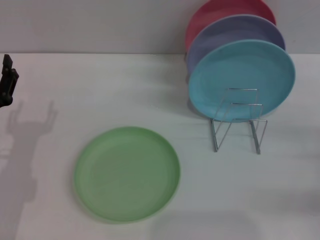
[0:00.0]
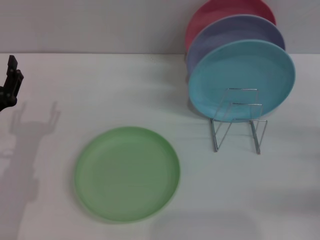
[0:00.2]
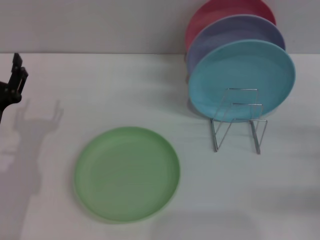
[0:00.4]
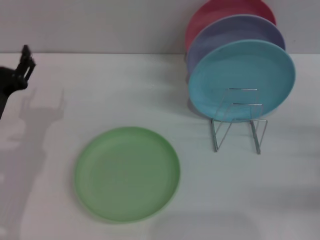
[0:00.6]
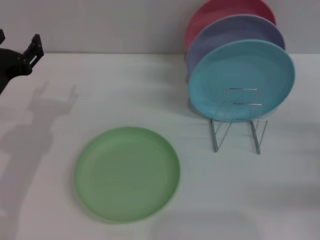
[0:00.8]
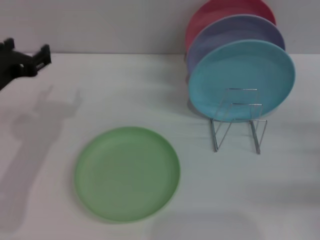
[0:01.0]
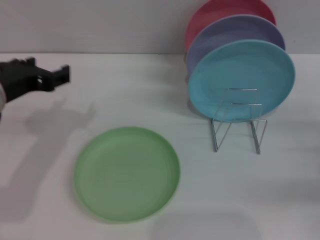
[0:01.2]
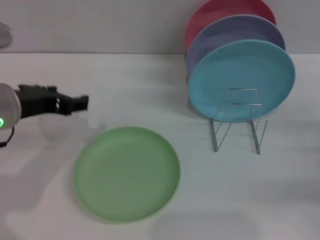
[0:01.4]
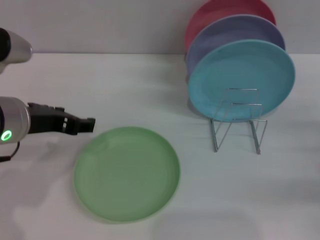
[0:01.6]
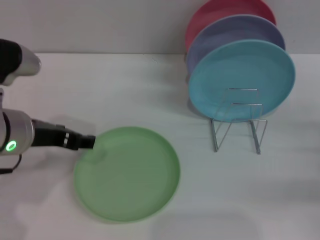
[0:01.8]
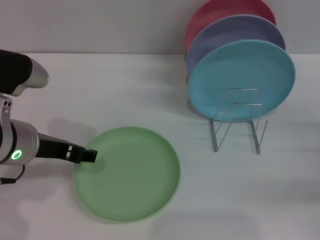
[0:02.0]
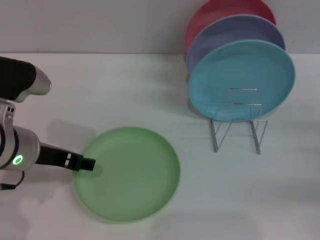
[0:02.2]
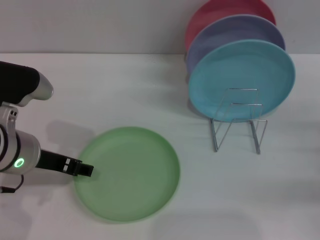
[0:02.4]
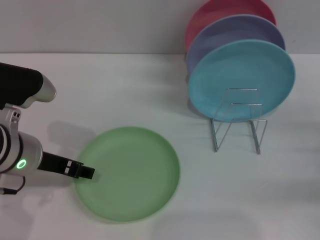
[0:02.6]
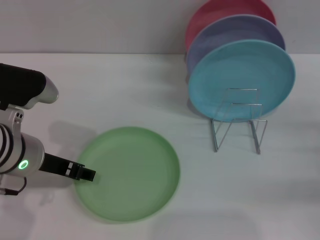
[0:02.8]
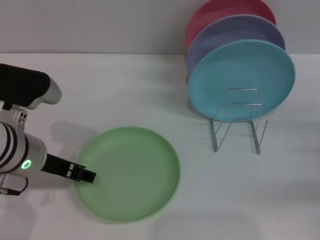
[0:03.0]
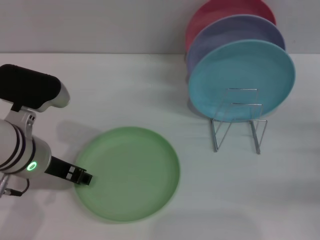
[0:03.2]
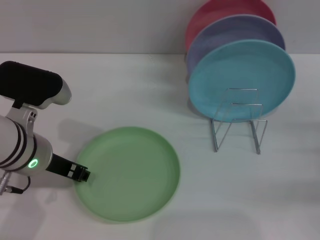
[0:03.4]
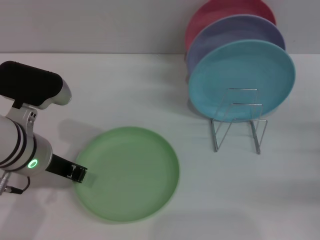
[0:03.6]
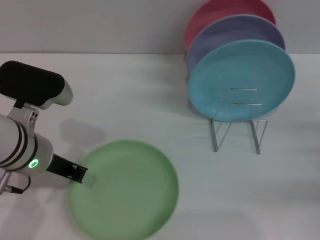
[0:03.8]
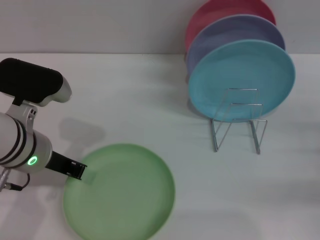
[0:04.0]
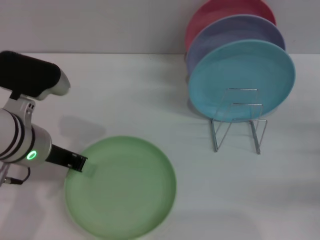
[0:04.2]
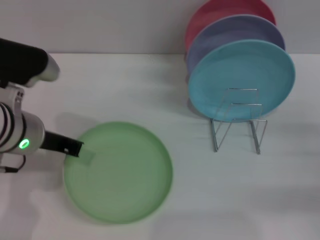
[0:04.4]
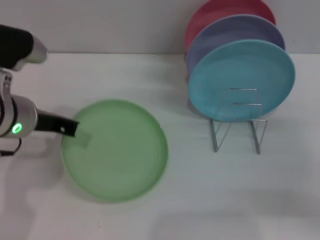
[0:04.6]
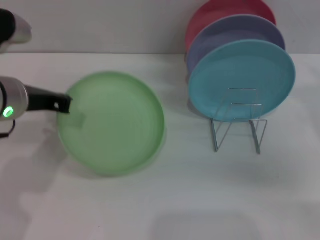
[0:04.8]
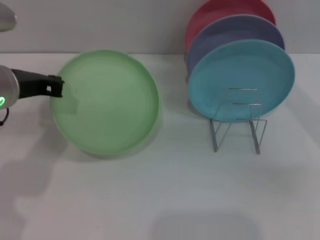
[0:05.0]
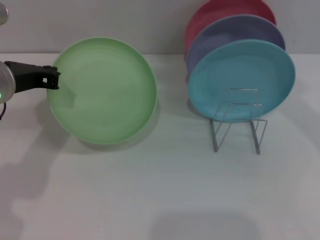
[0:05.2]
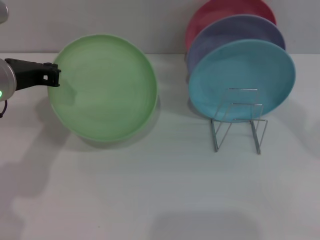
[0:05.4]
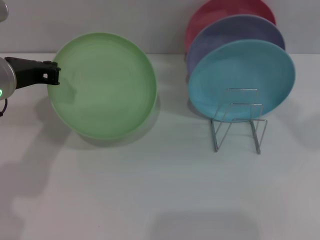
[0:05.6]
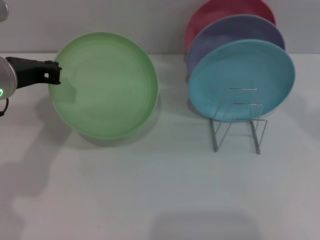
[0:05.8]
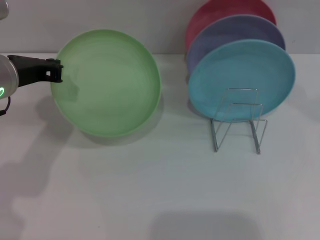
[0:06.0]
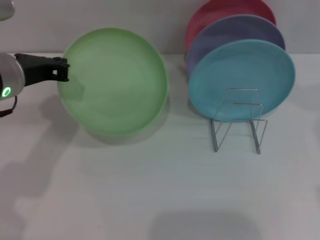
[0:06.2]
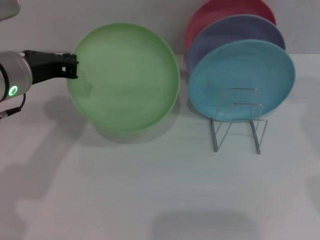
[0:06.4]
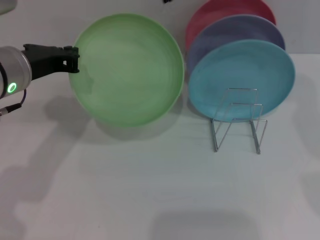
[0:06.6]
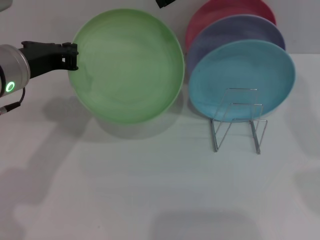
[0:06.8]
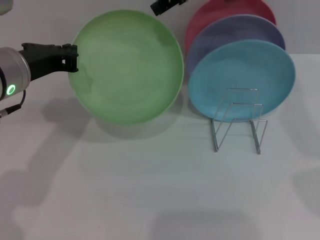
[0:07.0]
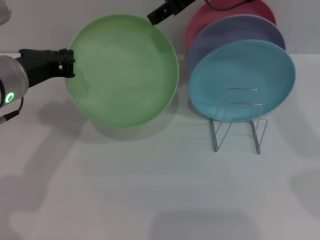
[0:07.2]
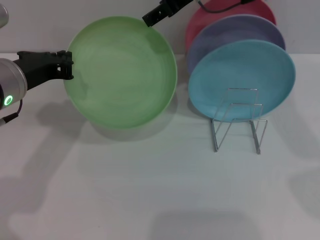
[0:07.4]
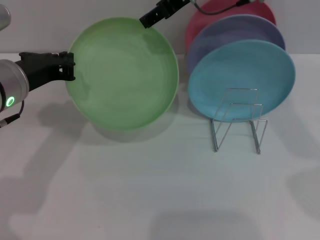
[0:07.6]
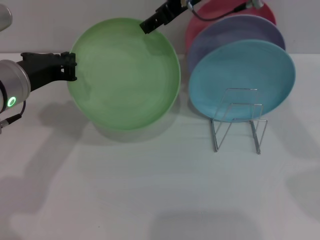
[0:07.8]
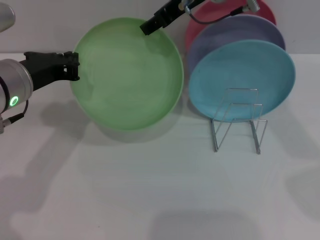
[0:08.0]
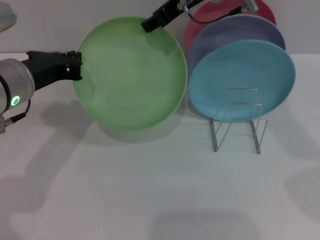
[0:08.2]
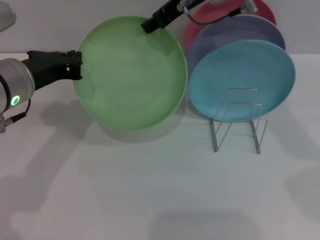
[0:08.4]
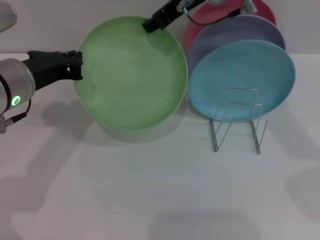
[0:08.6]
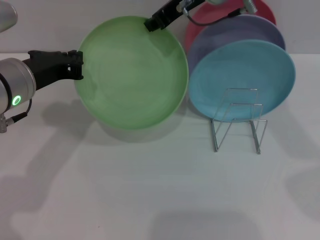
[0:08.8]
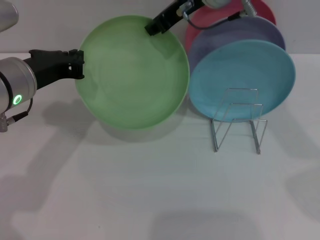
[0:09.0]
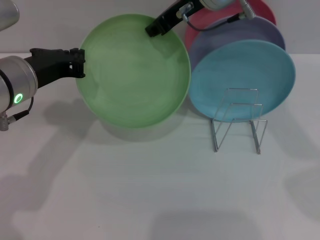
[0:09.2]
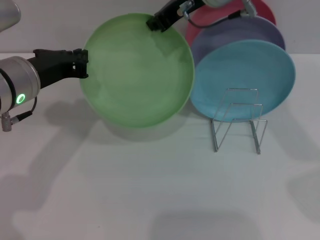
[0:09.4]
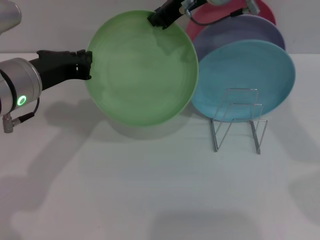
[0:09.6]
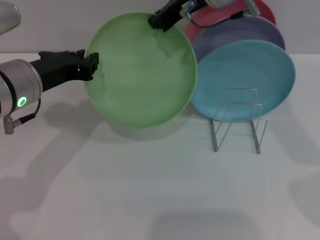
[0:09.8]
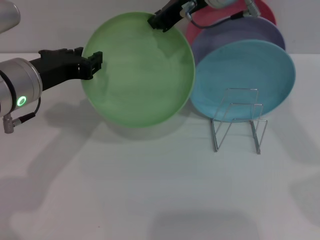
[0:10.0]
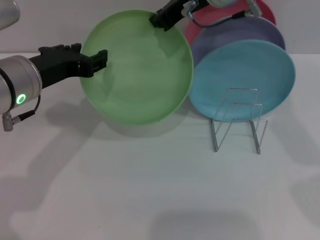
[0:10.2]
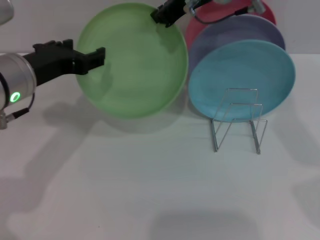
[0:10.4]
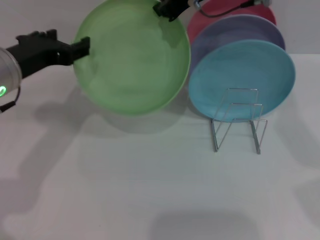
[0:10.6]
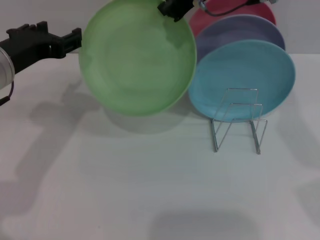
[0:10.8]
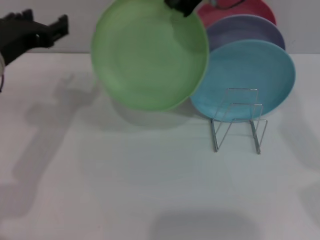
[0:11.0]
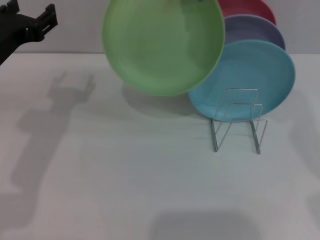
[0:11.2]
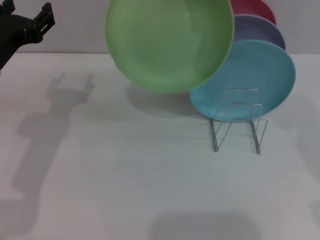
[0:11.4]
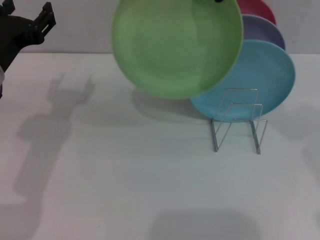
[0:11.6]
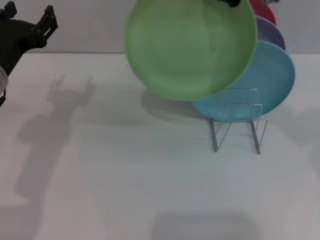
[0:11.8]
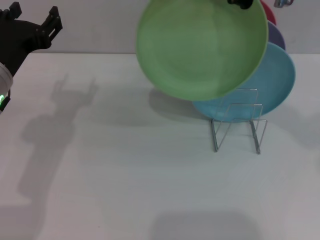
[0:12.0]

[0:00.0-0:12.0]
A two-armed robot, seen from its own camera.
Task of the whole recording: Grip the plate with one hand, pass it to the other, then set it on the shelf.
Step, 0:00.0 to 0:04.6: Pick up the plate with the left gripper.
Step, 0:04.8 to 0:10.6: Pass the plate from the left gripper to the right gripper.
0:00.0 to 0:01.6: The left gripper travels upward and to the right by about 15 cm.
0:01.6 to 0:03.0: The grippers stay close to where they were, moving slightly.
0:03.0 to 0:04.4: The left gripper closes its fingers.
0:04.4 to 0:06.0: The right gripper moves upward, to the left and forward, approximately 35 cm; the left gripper changes place by some 5 cm.
0:06.0 to 0:07.6: The right gripper shifts roughly 10 cm to the left.
0:07.6 to 0:09.0: The right gripper closes its fingers.
0:09.0 to 0:10.4: The left gripper opens up.
0:10.4 to 0:12.0: The right gripper moves backward, to the right and upward, roughly 10 cm.

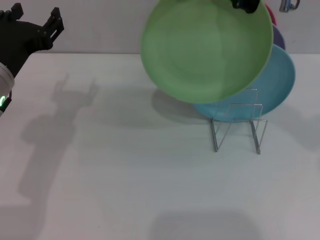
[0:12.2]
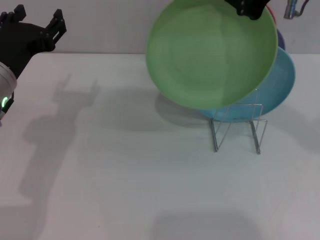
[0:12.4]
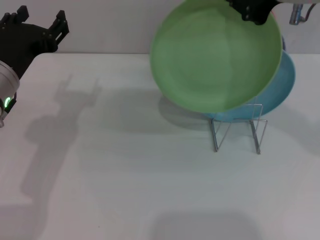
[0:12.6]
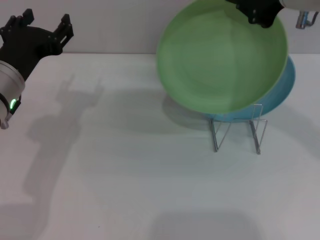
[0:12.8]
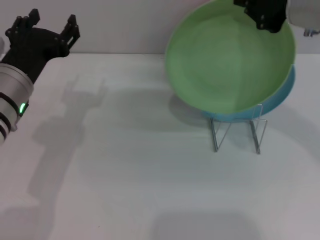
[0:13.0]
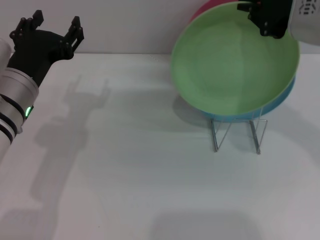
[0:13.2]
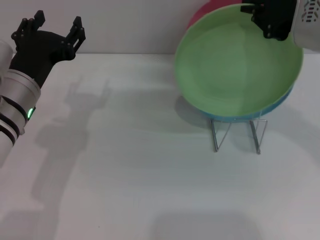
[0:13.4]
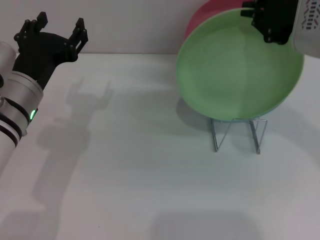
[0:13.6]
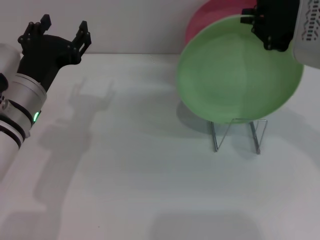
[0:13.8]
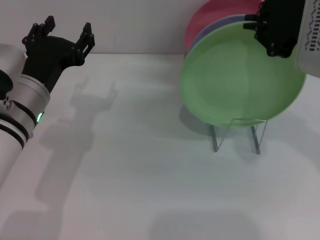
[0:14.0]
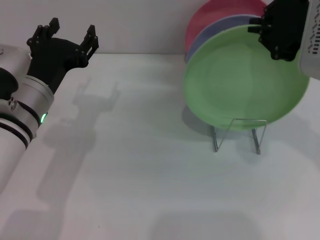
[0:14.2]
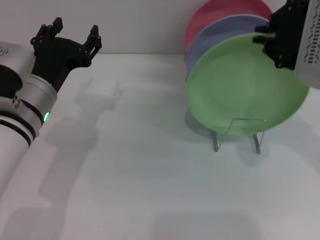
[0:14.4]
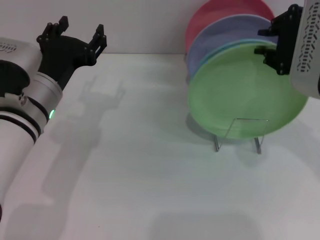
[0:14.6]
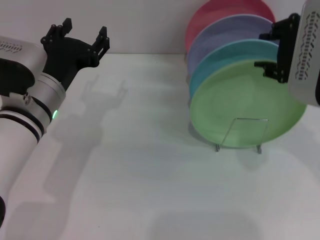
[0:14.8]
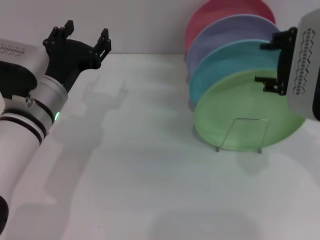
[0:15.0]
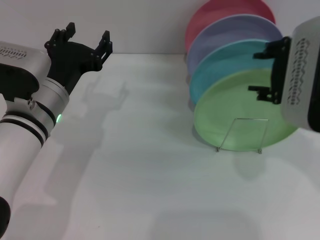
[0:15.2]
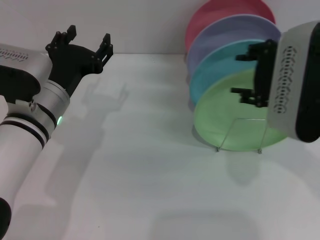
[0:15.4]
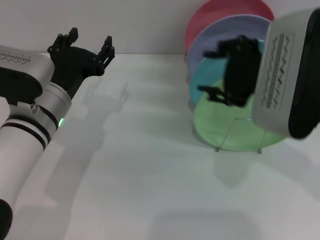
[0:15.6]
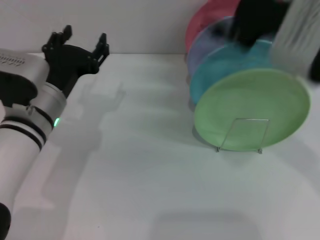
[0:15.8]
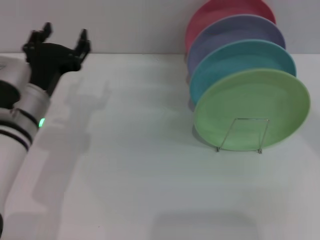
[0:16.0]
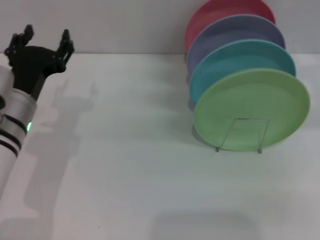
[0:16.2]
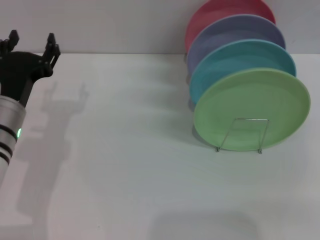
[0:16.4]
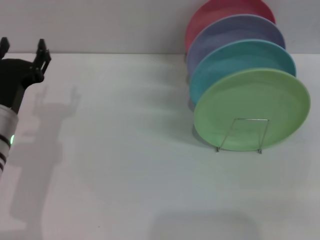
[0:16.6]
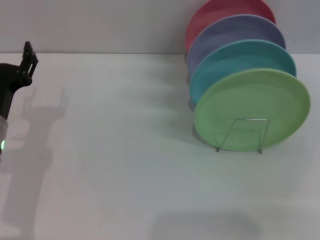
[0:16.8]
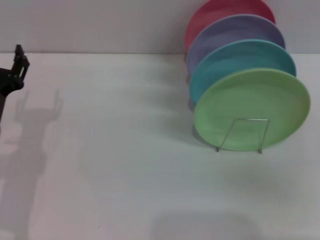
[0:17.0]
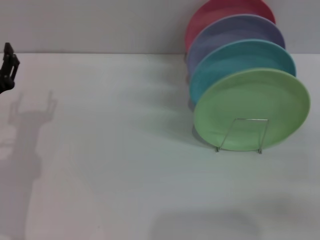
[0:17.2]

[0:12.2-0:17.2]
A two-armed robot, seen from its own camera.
Task of the whole recording: Grip the plate with one hand, pass it to the other, then set it on the shelf.
Step, 0:12.2 to 0:15.4: Place the plate on the shelf with the right gripper.
0:12.2 to 0:13.8: The right gripper ends up some 5 cm from where it was.
0:13.8 to 0:15.6: The right gripper moves approximately 5 cm, and opens its fingers.
0:15.6 to 0:17.2: The left gripper heads to the left, covering roughly 10 cm. Meanwhile the right gripper goes some 25 cm to the right and downward.
